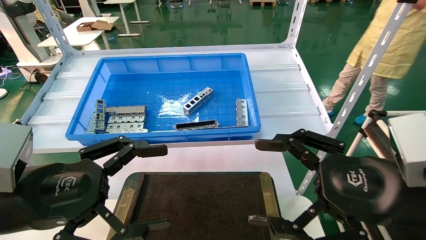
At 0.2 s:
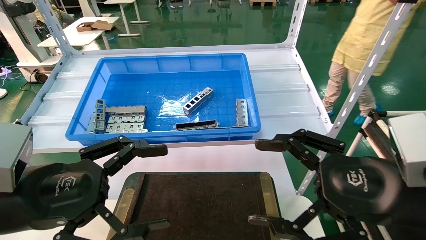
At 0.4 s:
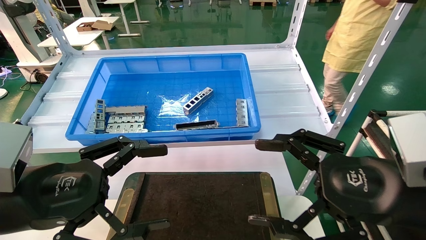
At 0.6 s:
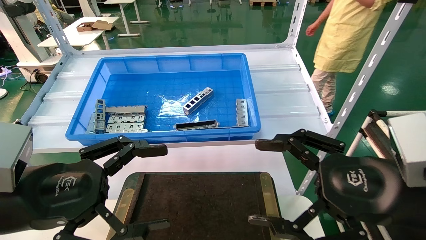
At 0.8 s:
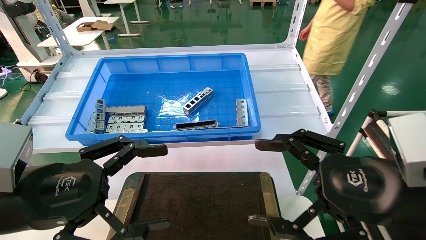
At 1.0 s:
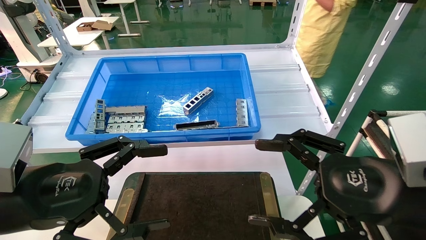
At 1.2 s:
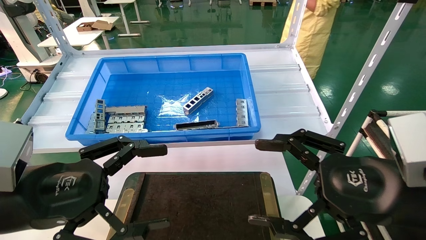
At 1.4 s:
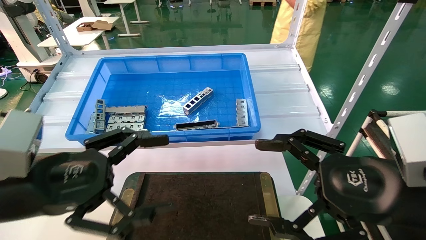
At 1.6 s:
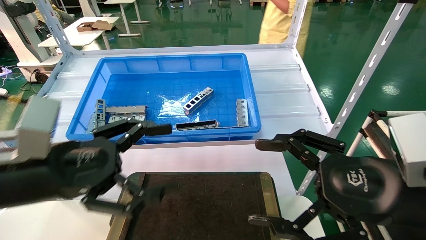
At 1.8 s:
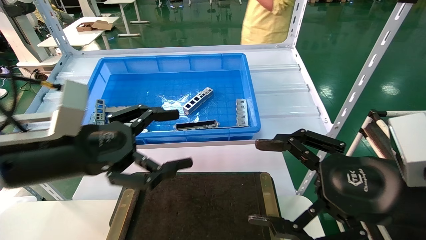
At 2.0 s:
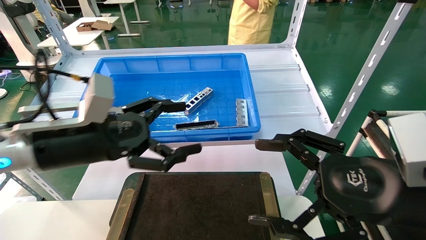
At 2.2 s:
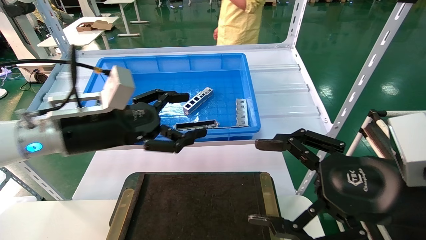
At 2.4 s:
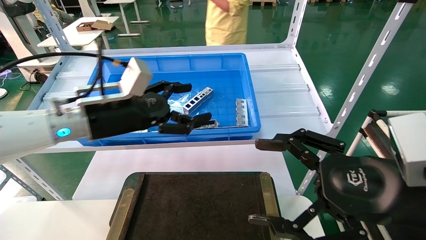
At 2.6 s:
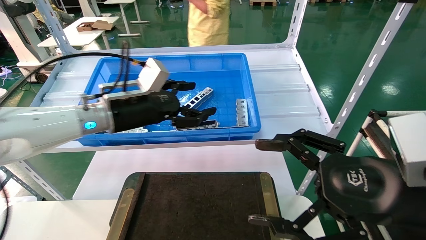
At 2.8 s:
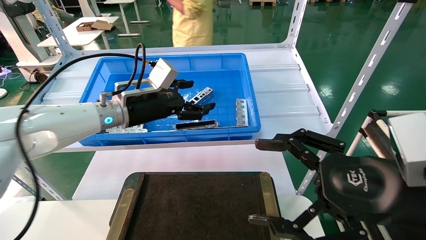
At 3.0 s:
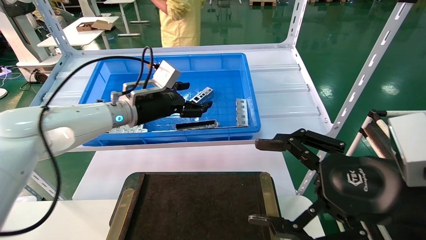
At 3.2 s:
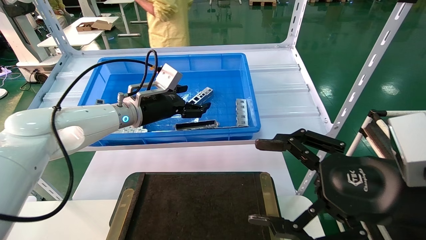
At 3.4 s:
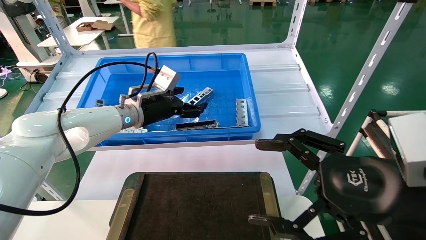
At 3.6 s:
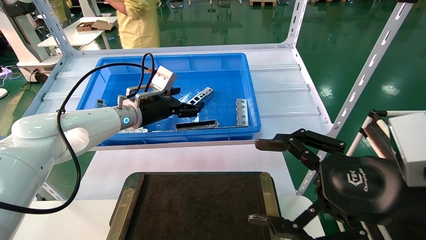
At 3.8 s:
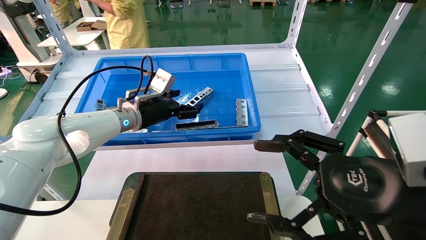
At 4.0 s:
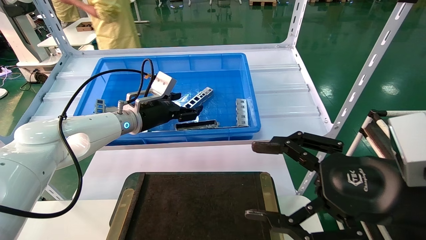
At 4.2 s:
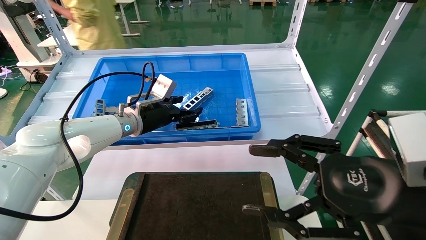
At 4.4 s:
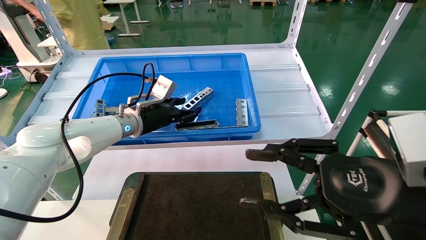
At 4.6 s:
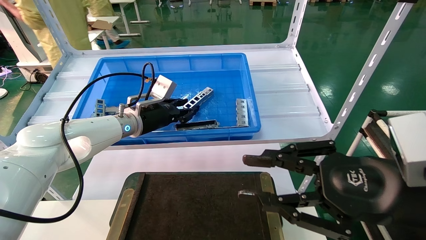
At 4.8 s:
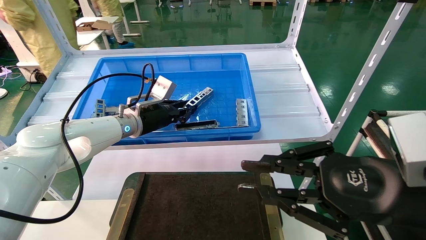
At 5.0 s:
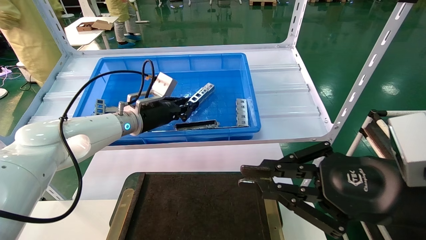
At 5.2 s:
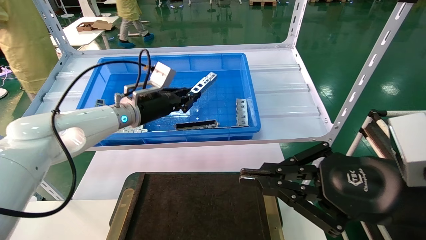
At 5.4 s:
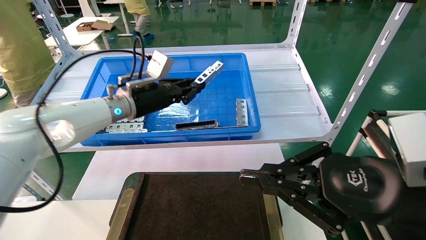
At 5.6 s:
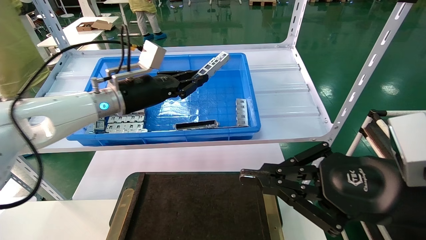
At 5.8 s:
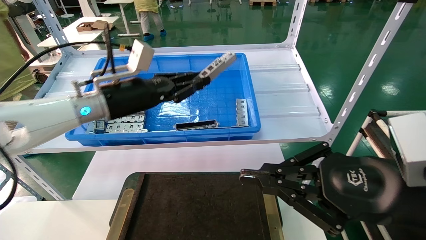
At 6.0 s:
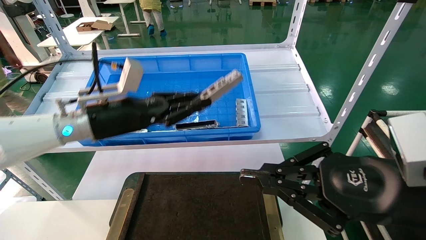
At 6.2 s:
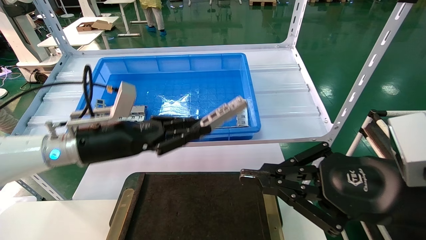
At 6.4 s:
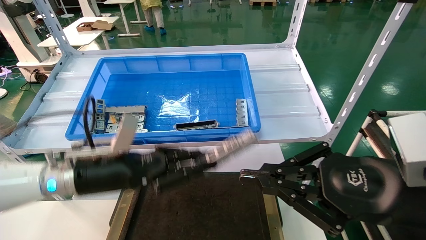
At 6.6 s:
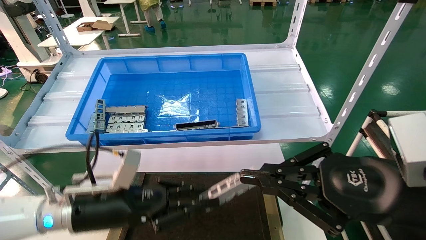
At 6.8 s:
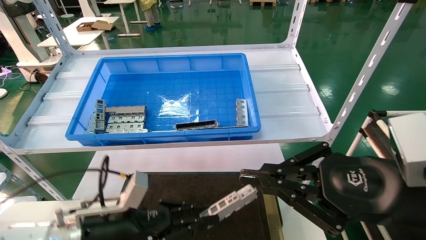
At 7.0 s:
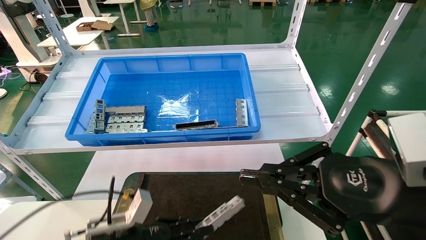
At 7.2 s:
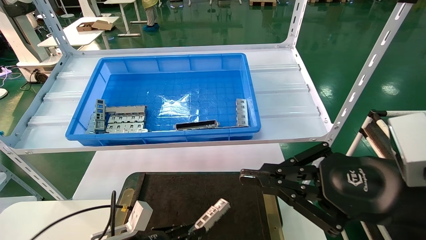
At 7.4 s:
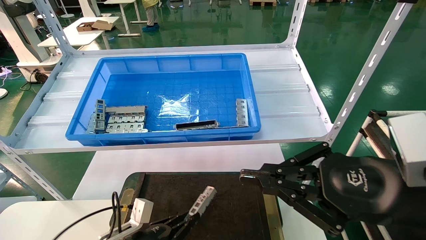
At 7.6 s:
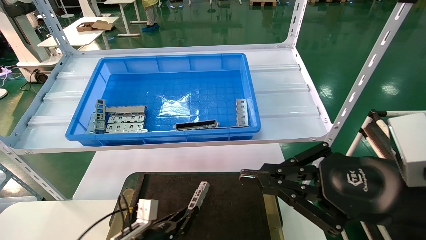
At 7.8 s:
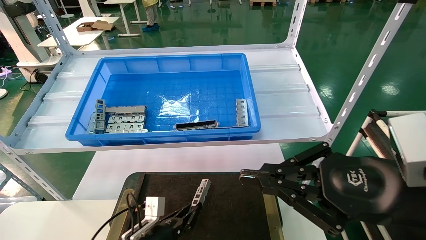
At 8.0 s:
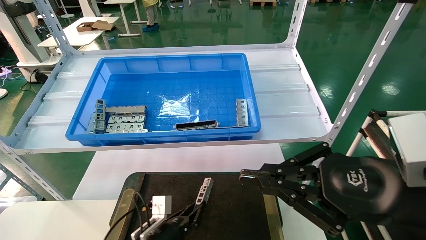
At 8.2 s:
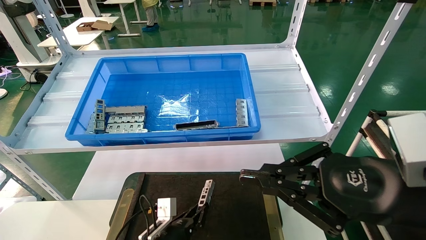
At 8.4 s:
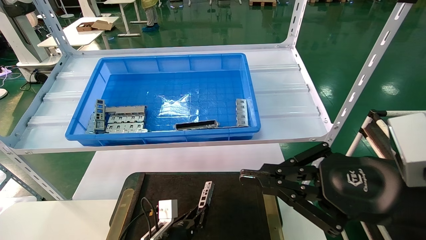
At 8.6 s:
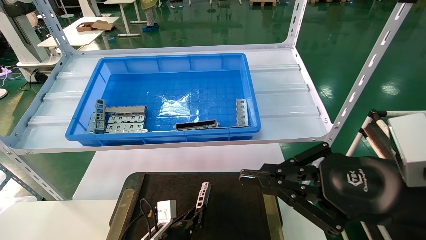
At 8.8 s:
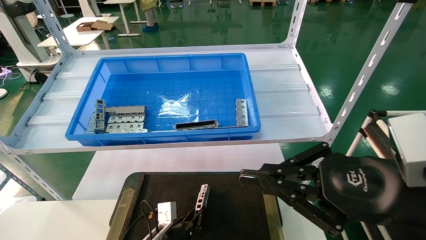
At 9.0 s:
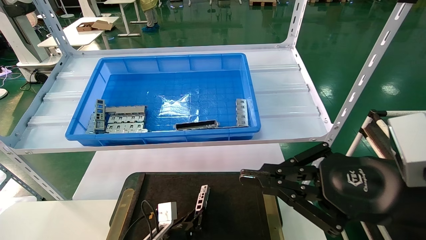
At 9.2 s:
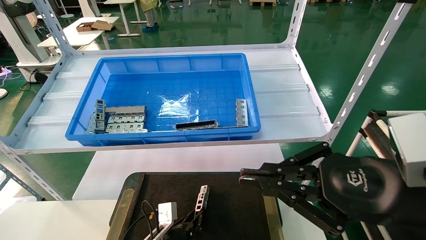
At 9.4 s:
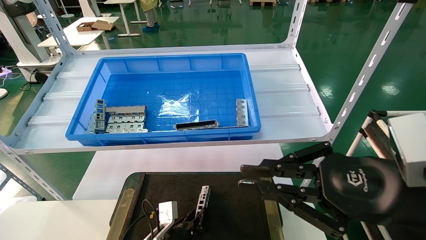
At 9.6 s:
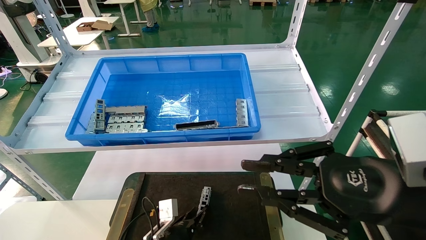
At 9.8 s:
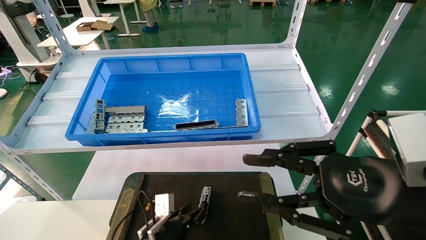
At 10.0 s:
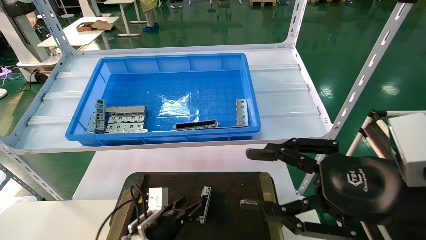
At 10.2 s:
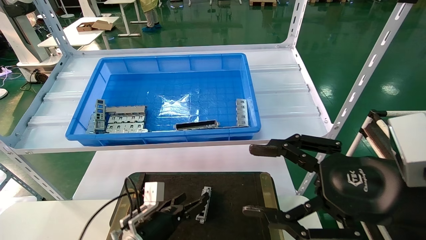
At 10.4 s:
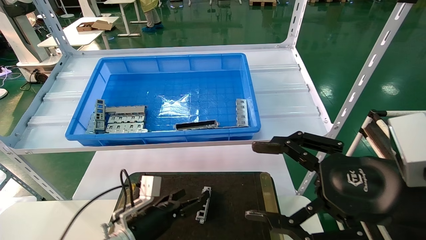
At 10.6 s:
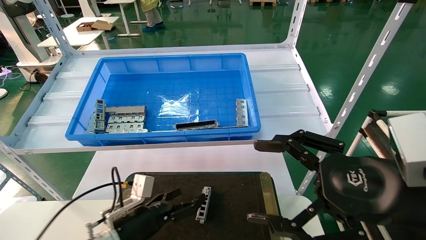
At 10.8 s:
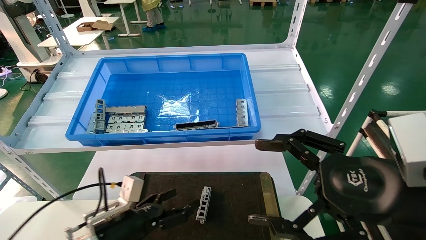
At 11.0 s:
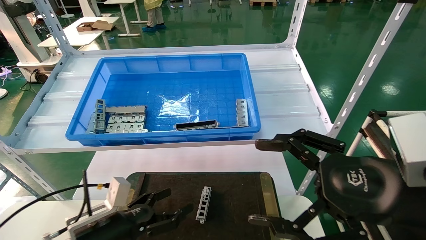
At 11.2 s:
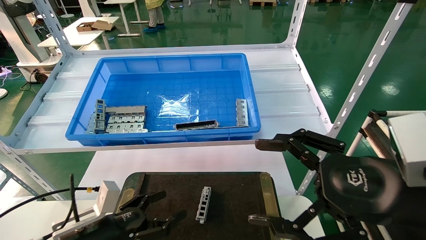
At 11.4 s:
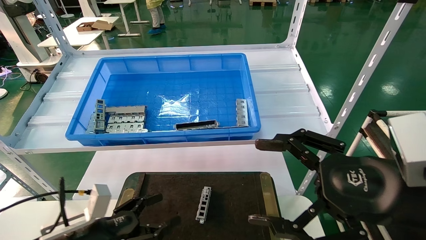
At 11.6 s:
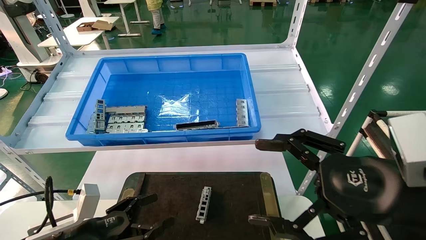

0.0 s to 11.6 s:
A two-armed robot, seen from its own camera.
Task of the whole recording: Grasp the part with one hand and place it on the black container.
Step, 1.2 to 4.8 s: Pick up the front USB bracket from the feeding area.
Step, 5.0 to 9.4 s: Place the front USB bracket into the box.
0.0 to 1.4 s: The grippers make only small movements.
1.4 to 2.8 s: The left gripper shifts about 25 cm forward.
2.8 to 4.4 s: The left gripper heads forward, covering approximately 5 cm, and closes up.
4.4 to 5.8 s: The left gripper is displaced backward and upward by approximately 10 cm, and closes. Meanwhile the right gripper closes its fingers.
5.8 to 7.2 s: The left gripper goes about 30 cm downward.
7.2 to 8.8 s: The left gripper shifts about 15 cm to the right, downward and forward.
8.8 to 10.2 s: The right gripper opens up; the left gripper is displaced upward by roughly 10 cm, and opens.
10.2 to 11.6 s: The right gripper opens up, while the left gripper is displaced to the left, backward and upward by approximately 15 cm.
